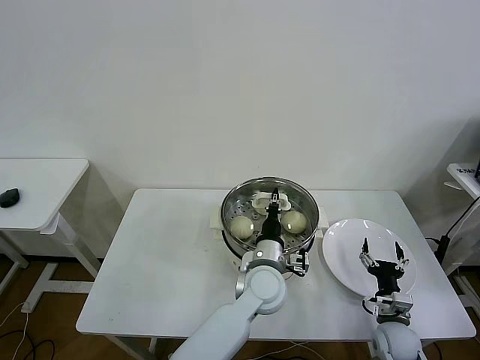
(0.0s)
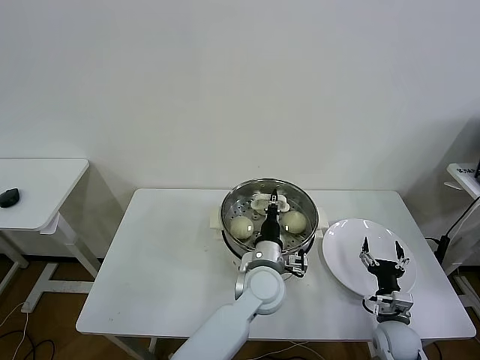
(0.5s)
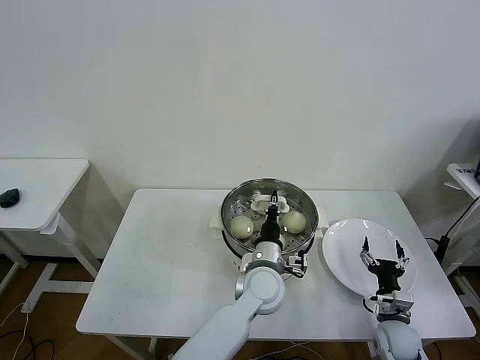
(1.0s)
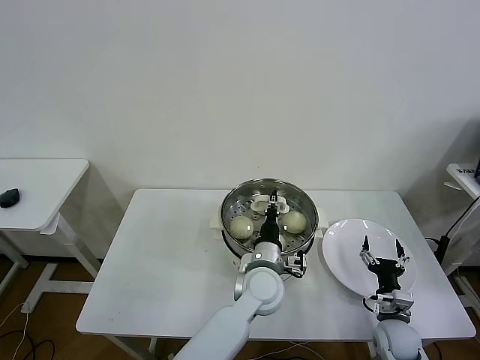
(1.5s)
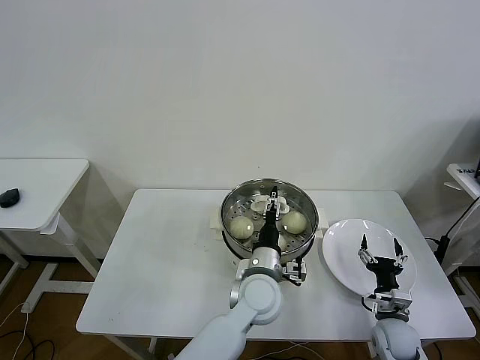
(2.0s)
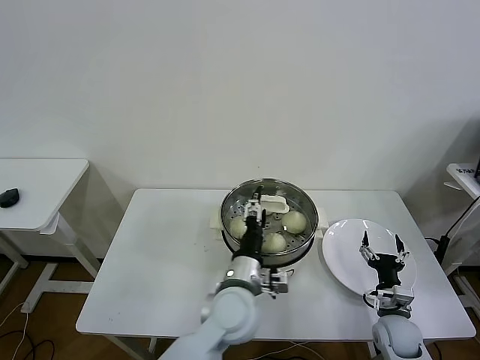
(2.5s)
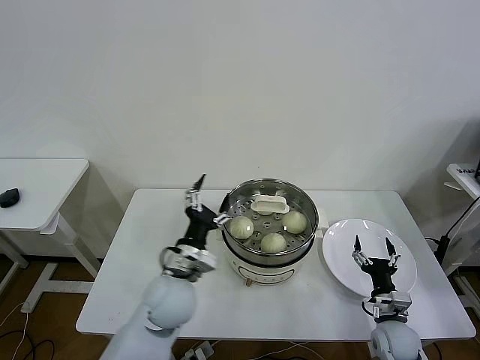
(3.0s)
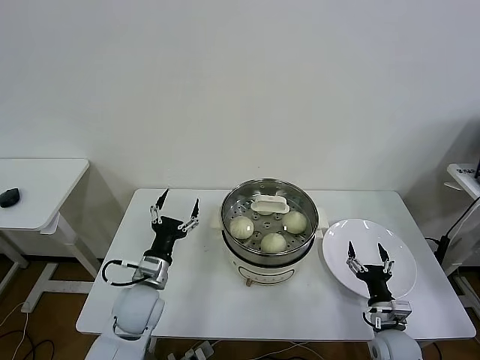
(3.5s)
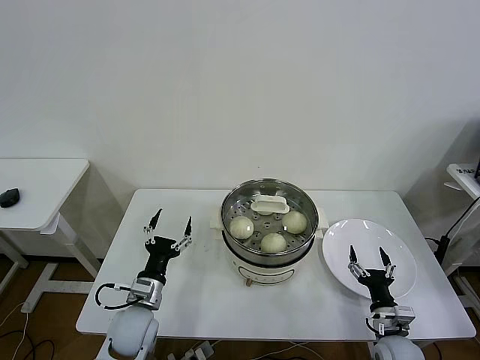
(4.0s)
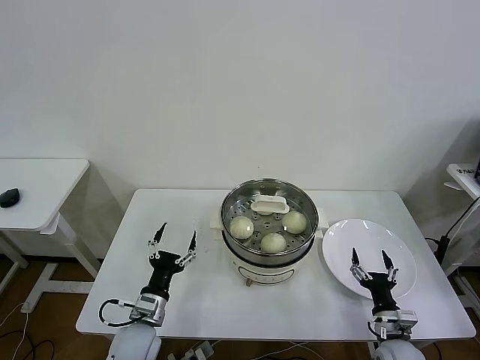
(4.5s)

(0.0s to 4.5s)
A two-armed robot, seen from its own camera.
Task of the whole recording: take steamed baozi put them in steamer then cover it.
0.0s - 2.0s: The left gripper opens its fingers.
2.0s - 4.5s: The left gripper heads to the left, covering roughly 25 cm.

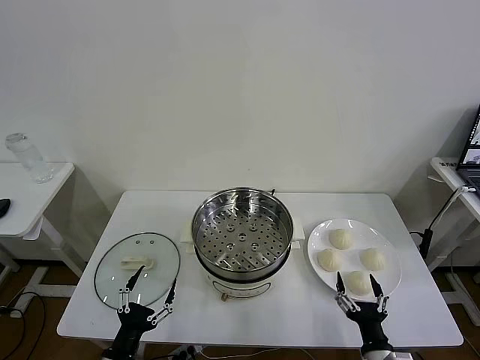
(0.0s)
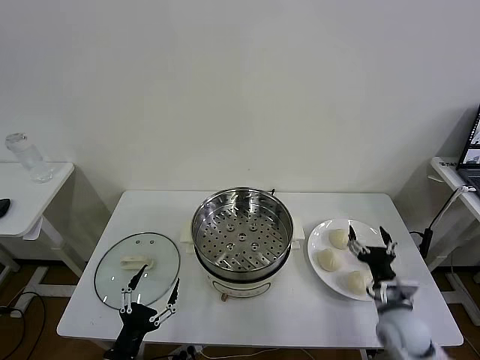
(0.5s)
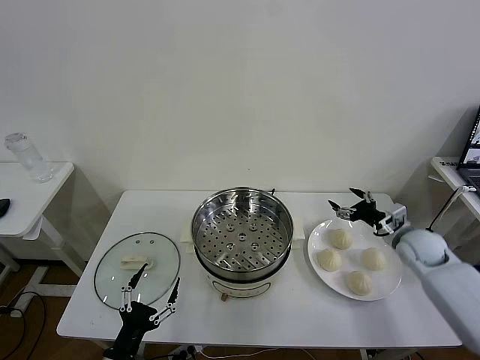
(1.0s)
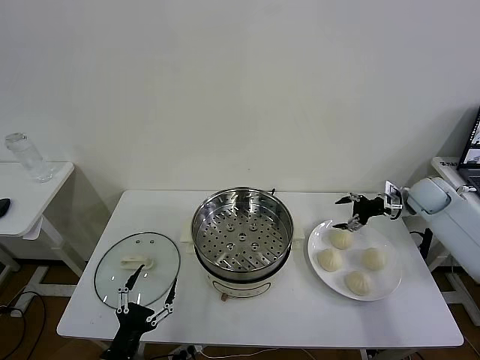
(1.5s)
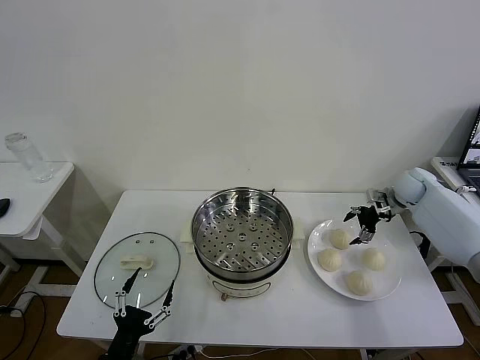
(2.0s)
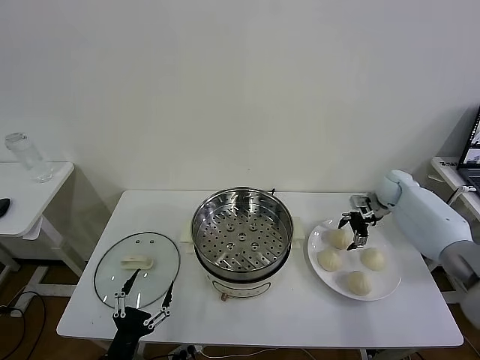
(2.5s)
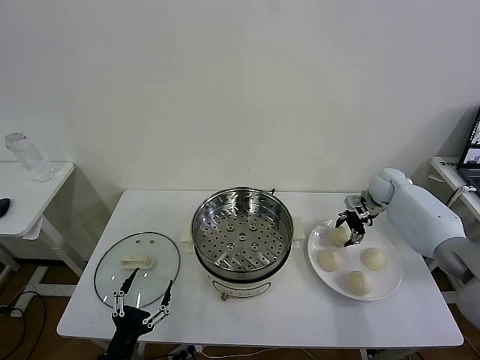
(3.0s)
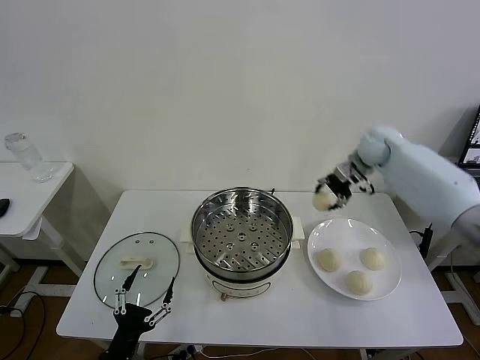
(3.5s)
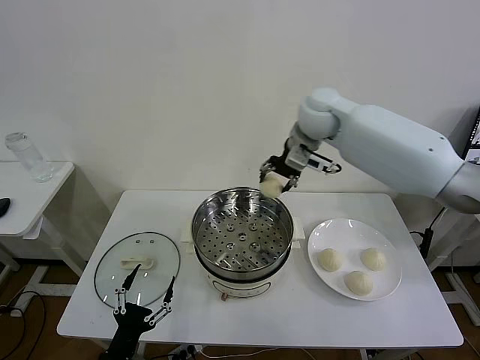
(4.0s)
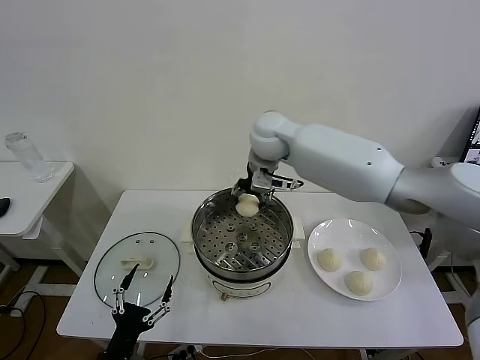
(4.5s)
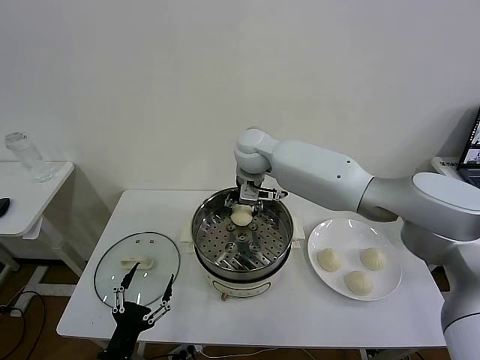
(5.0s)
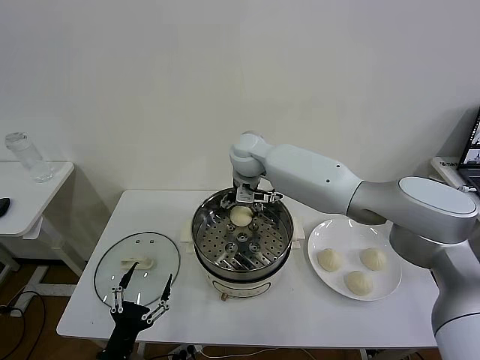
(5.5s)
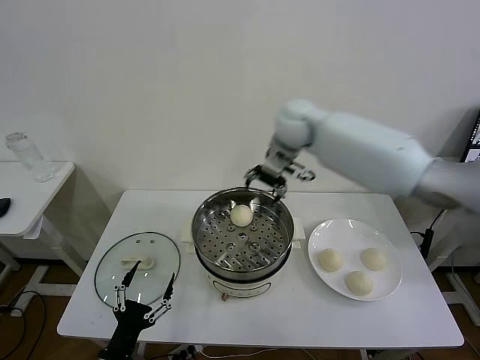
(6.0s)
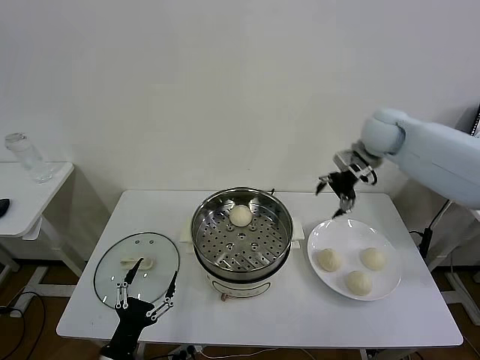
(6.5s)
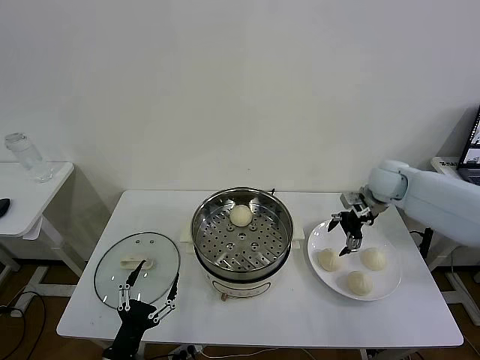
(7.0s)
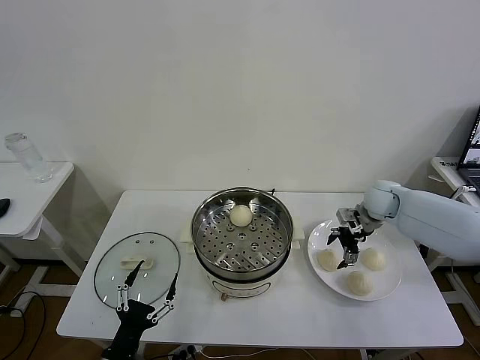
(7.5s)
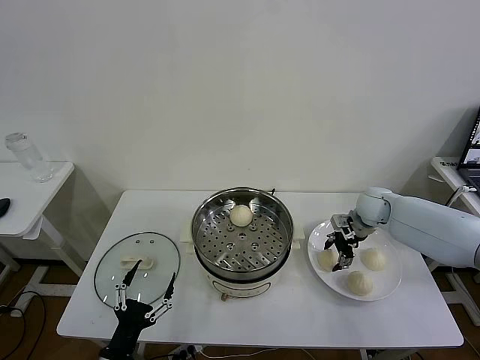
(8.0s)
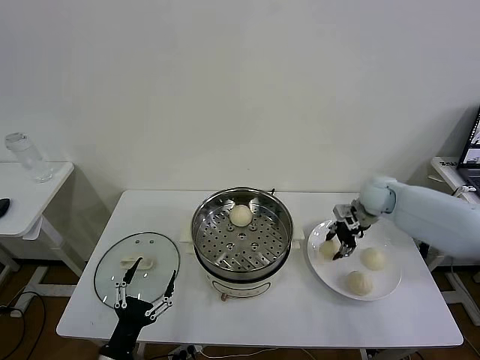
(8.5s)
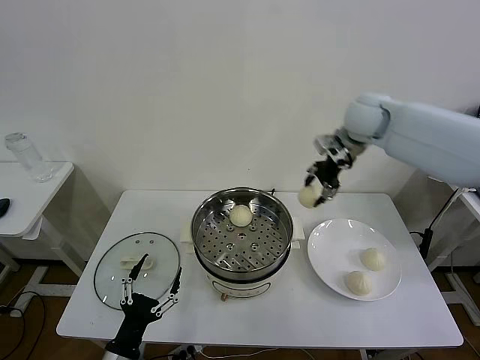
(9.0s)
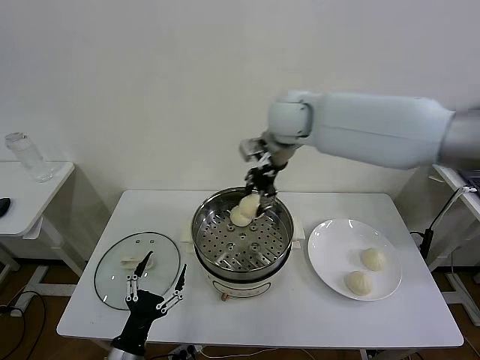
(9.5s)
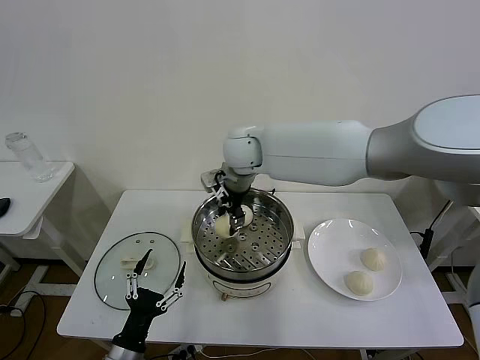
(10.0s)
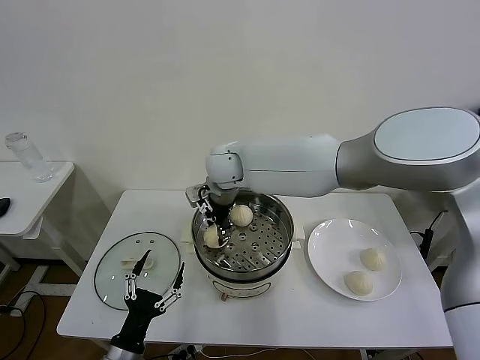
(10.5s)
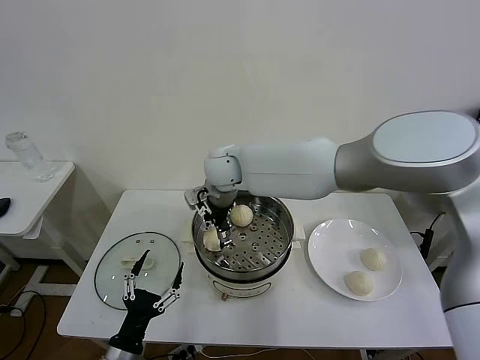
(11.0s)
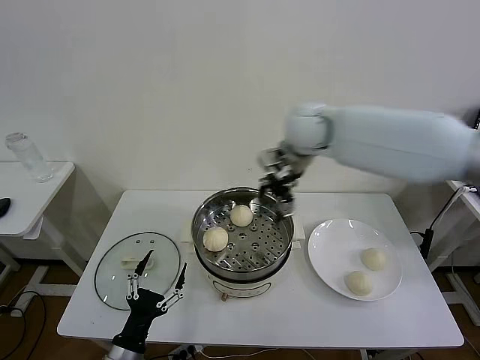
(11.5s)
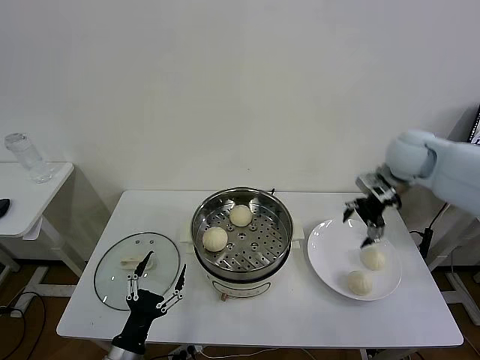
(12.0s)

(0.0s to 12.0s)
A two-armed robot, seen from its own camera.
Task of the whole recording: take steamed baozi put them in steamer then cover it.
Step, 0.0s - 2.5s: Grasp the baozi in the plate with right gripper.
Step, 3.0s - 5.5s: Place the baozi on the steamer with right gripper.
Step, 6.0s - 8.0s: Grasp the baozi in the plate with right gripper.
Step, 8.5s - 11.0s: Place the baozi on the steamer with right gripper.
2.0s - 4.0s: The right gripper moves to the left and upward, approximately 40 cm, and closes its fingers.
4.0s - 6.0s: The right gripper goes to the left and returns, about 10 cm each way, and opens up.
6.0s - 8.0s: The right gripper travels downward and to the right by approximately 30 cm, and closes up.
8.0s - 10.0s: The right gripper goes roughly 40 cm to the left and upward, and closes.
10.0s - 12.0s: The right gripper goes approximately 35 cm to the right, and opens.

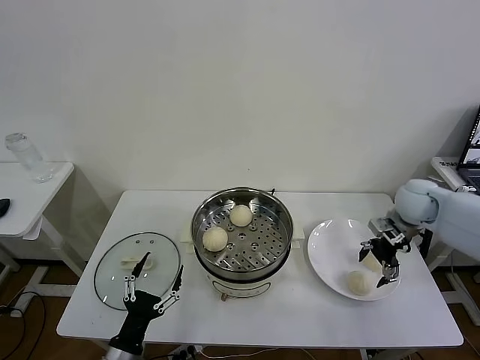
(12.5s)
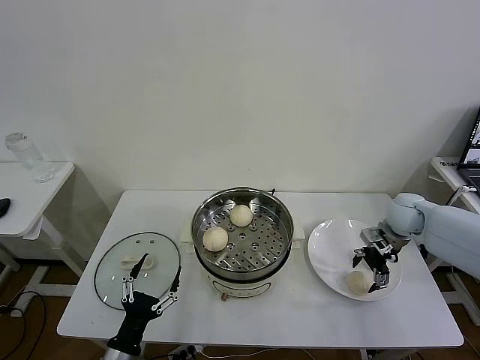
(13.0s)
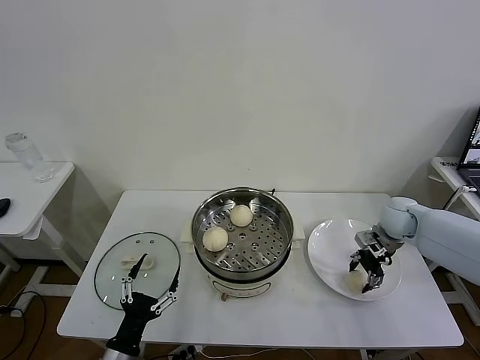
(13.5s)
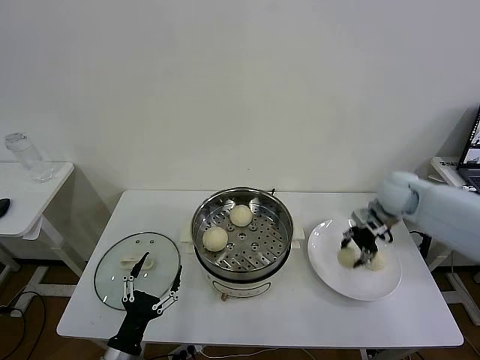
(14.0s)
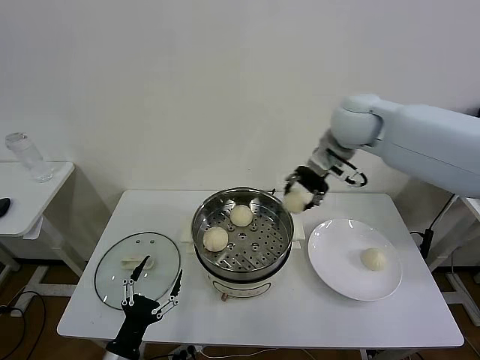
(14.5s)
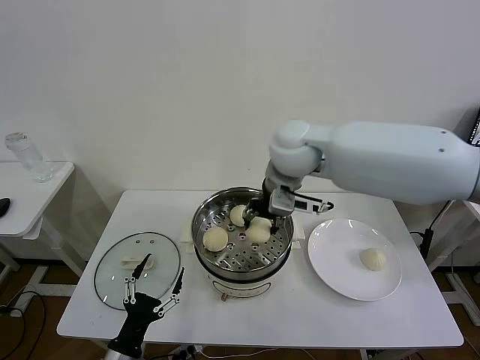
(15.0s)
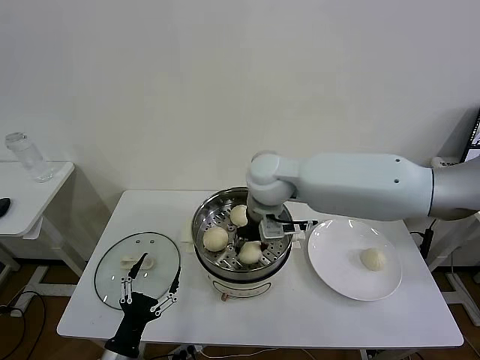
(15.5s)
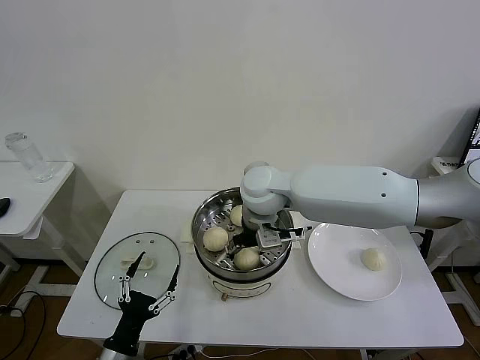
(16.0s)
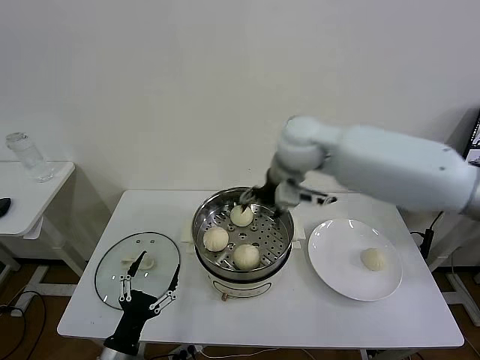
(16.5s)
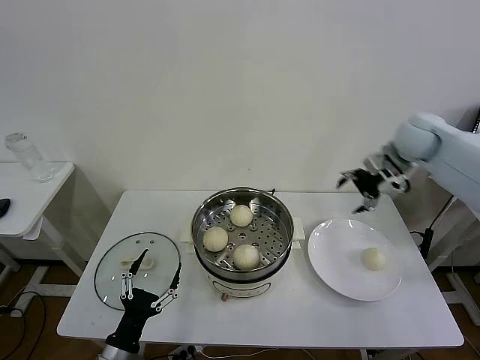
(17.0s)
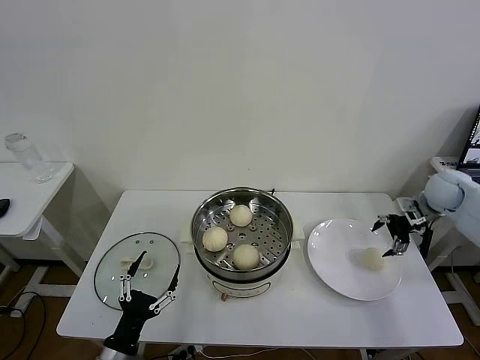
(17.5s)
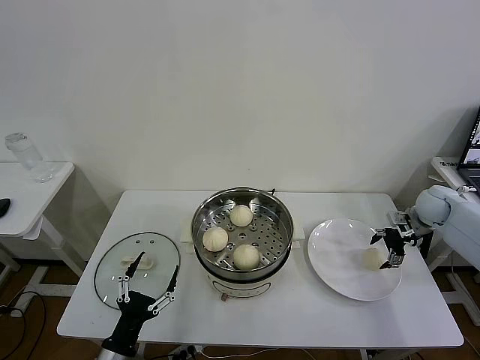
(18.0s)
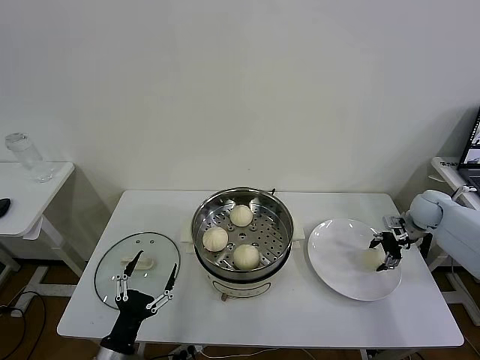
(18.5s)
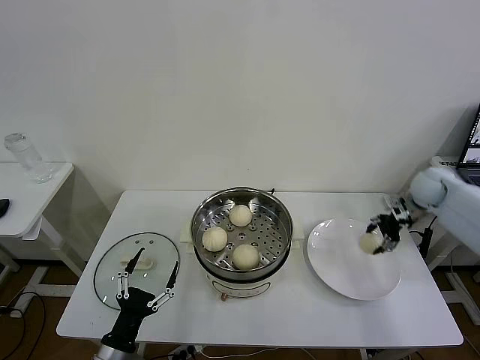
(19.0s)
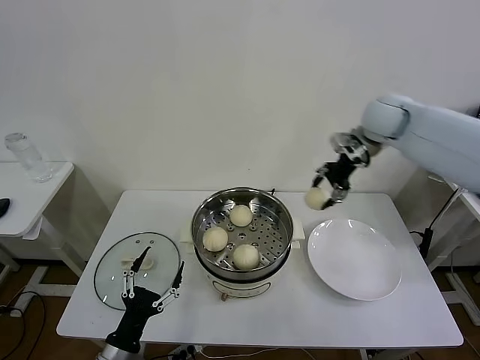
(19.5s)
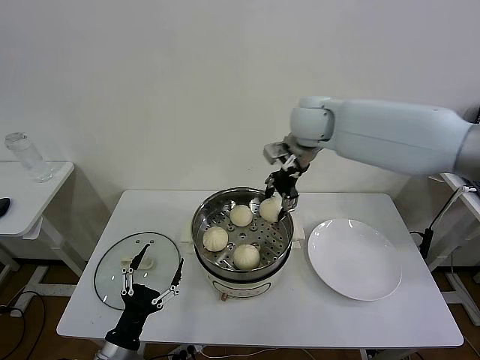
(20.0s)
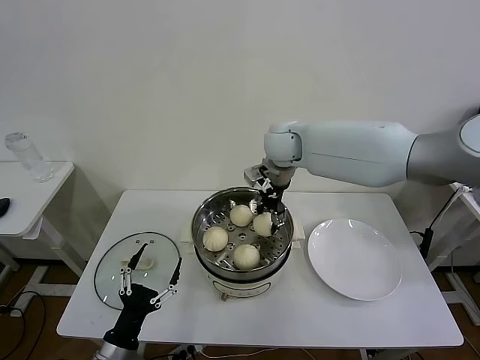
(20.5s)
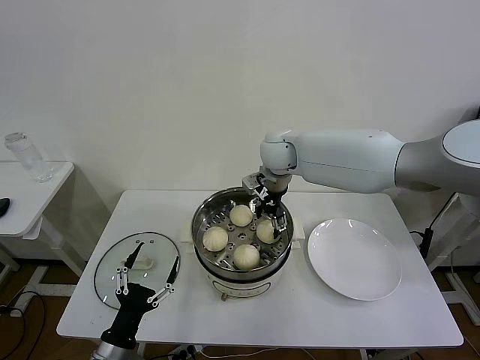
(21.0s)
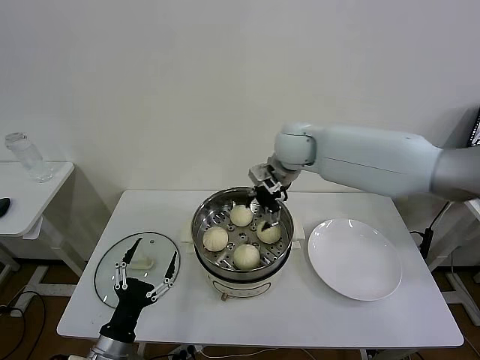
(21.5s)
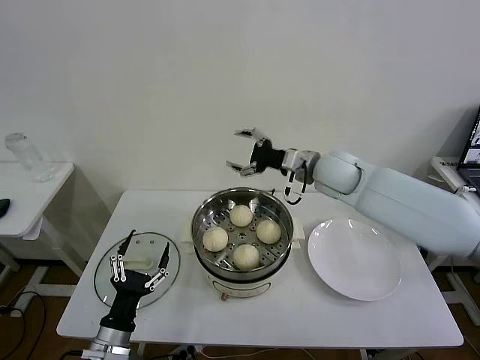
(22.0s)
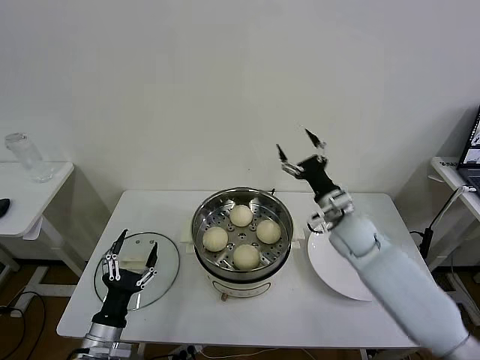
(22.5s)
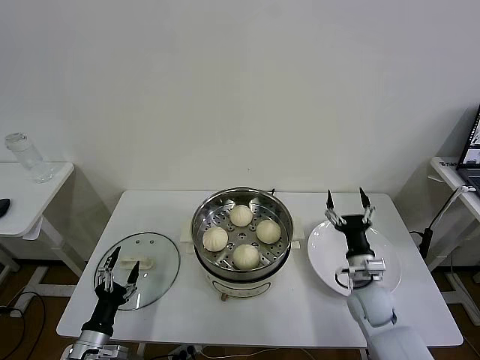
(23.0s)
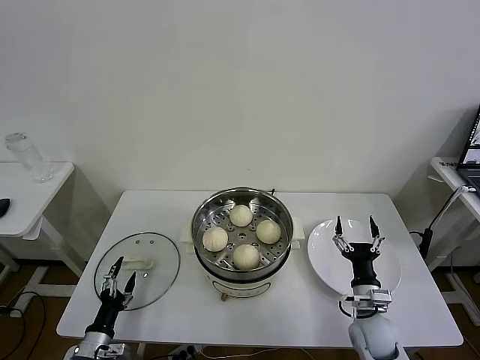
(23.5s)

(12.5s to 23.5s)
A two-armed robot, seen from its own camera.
Task of the whole recording: take steamed baozi put them in steamer then cover it.
Step, 14.0s - 16.0s: Place the baozi on the steamer with right gripper.
Step, 16.5s - 18.5s: Grasp the baozi in the plate with right gripper.
Step, 19.0s - 21.0s: Place the baozi on the steamer with right gripper.
12.5s - 14.5s: The right gripper heads to the left and upward, covering some 30 cm, and closes up.
14.5s - 16.0s: The right gripper moves to the left, downward and backward, approximately 20 cm, and opens up.
16.0s - 18.0s: The right gripper shifts some 50 cm to the right.
18.0s - 20.0s: The right gripper shifts approximately 40 cm to the left and upward, and closes its fingers.
20.0s - 21.5s: The right gripper opens.
21.5s - 23.5s: The right gripper moves downward, backward and to the right, about 50 cm. The left gripper shifts roughly 15 cm downward and to the left.
